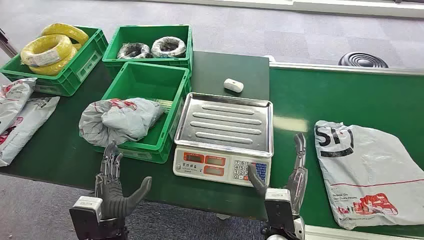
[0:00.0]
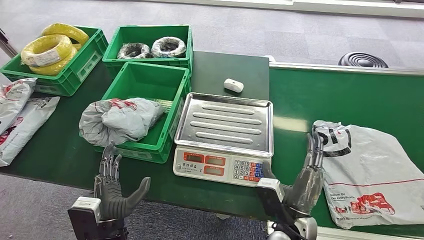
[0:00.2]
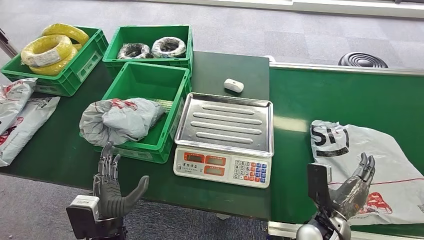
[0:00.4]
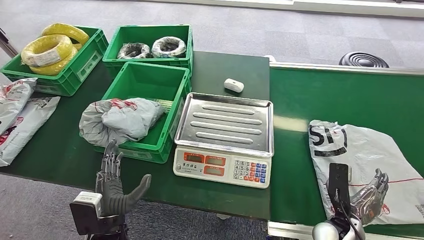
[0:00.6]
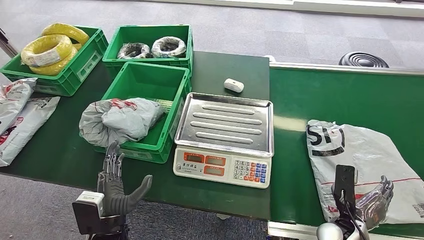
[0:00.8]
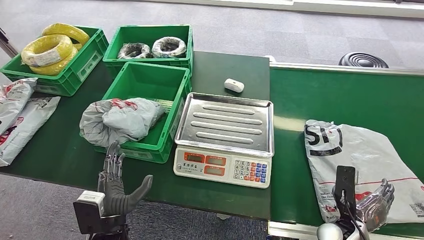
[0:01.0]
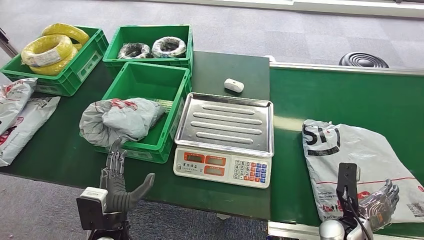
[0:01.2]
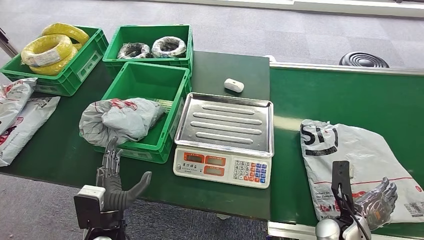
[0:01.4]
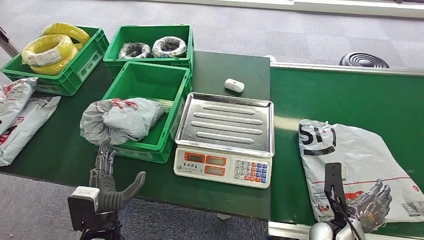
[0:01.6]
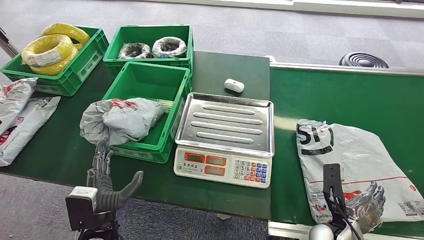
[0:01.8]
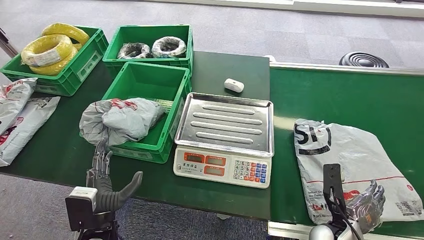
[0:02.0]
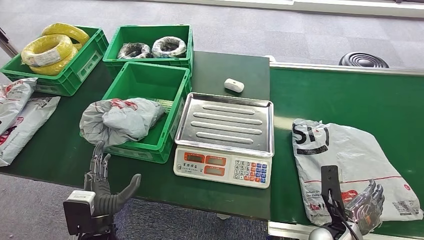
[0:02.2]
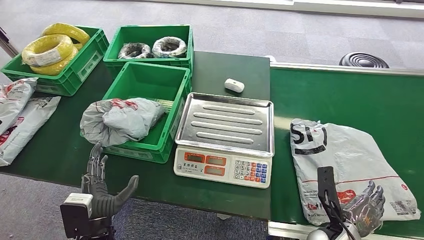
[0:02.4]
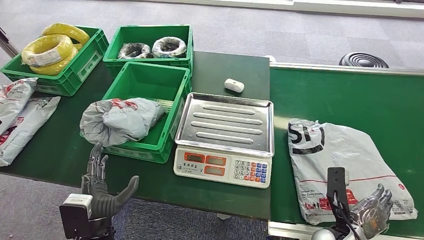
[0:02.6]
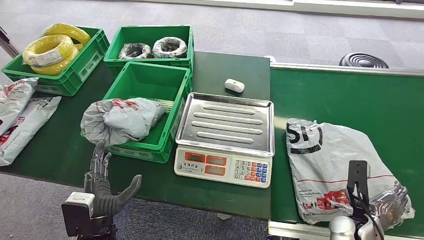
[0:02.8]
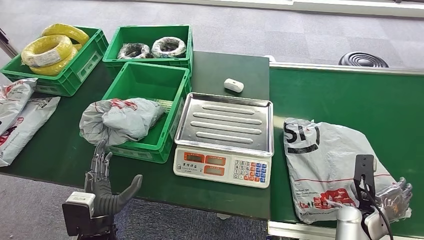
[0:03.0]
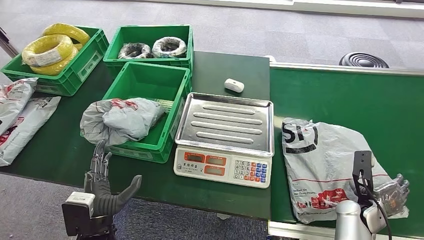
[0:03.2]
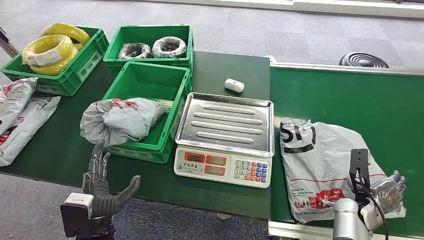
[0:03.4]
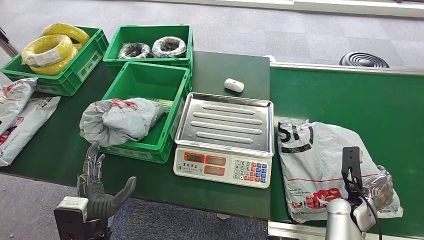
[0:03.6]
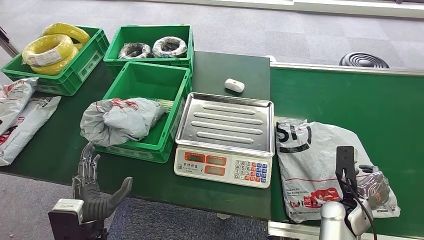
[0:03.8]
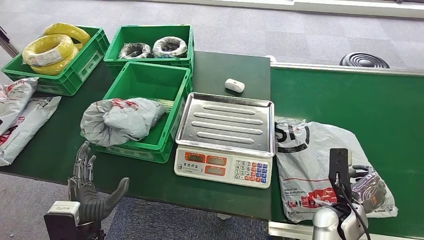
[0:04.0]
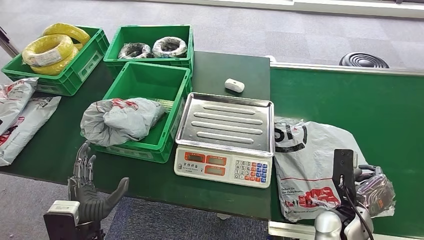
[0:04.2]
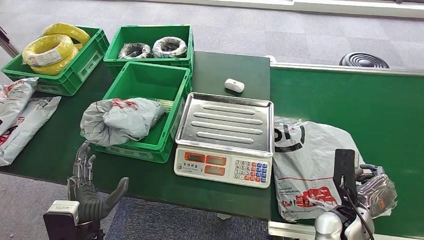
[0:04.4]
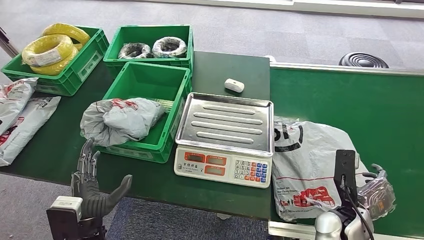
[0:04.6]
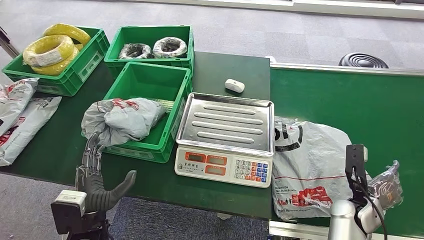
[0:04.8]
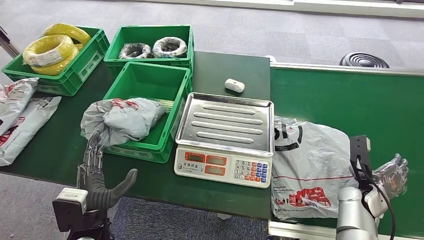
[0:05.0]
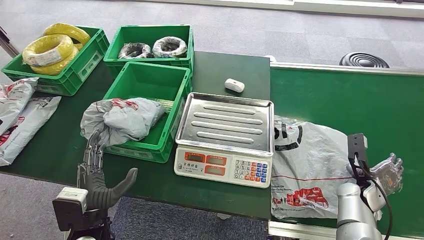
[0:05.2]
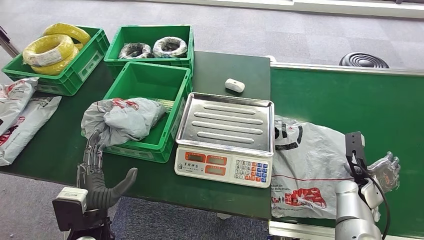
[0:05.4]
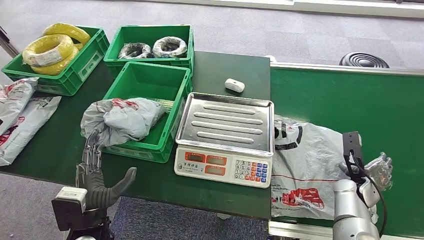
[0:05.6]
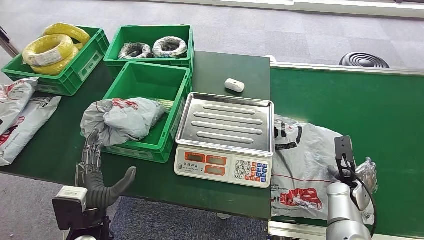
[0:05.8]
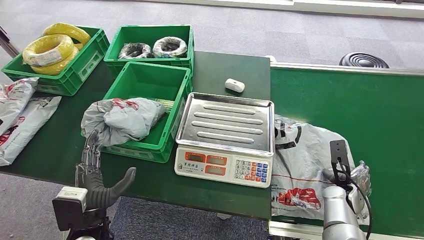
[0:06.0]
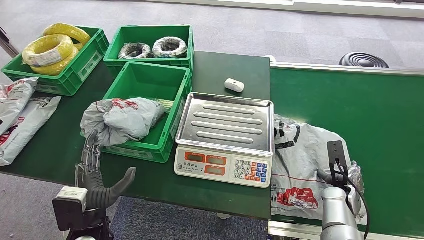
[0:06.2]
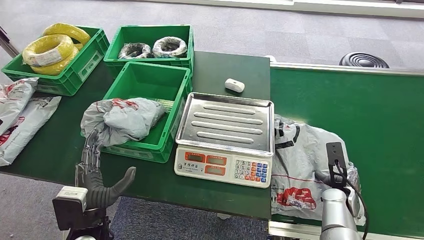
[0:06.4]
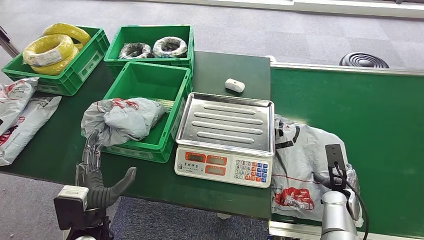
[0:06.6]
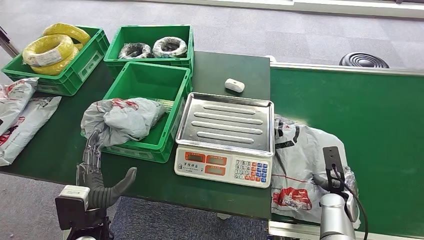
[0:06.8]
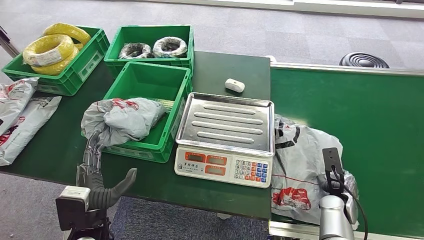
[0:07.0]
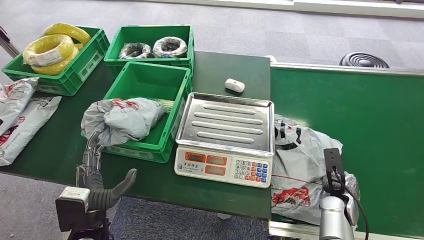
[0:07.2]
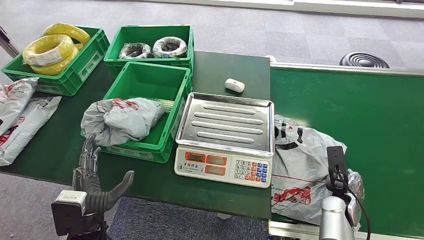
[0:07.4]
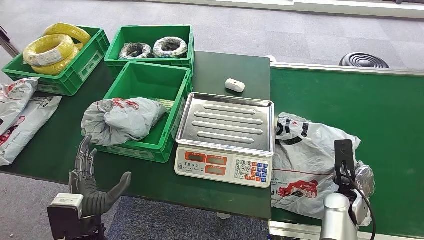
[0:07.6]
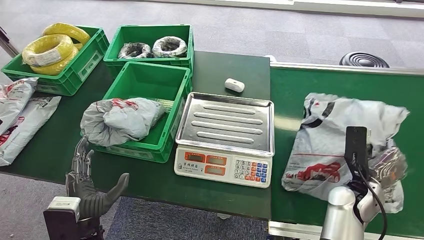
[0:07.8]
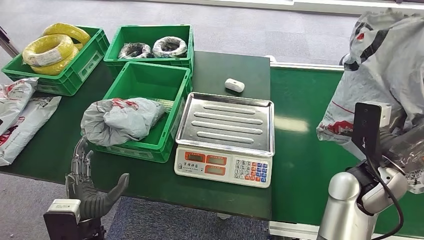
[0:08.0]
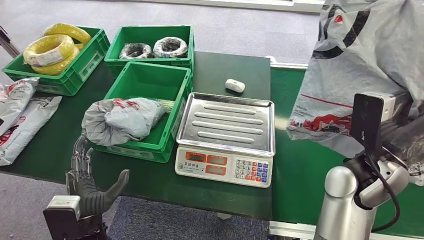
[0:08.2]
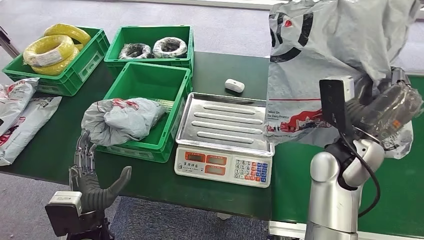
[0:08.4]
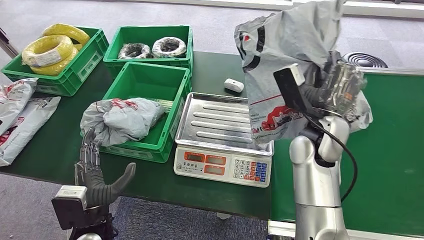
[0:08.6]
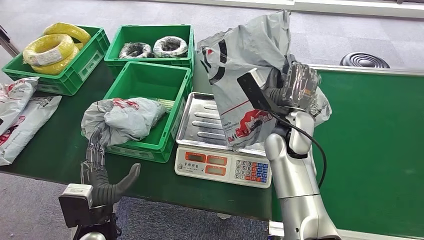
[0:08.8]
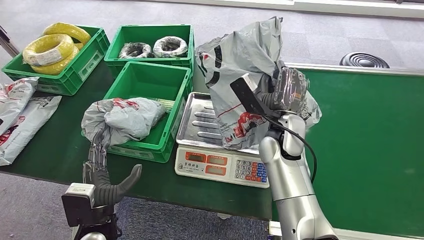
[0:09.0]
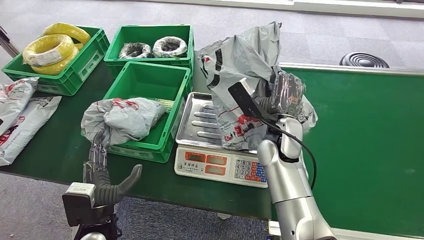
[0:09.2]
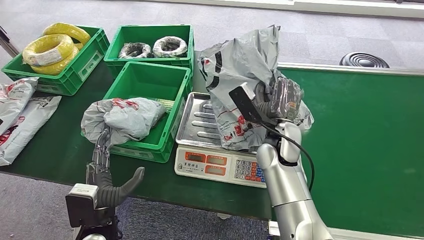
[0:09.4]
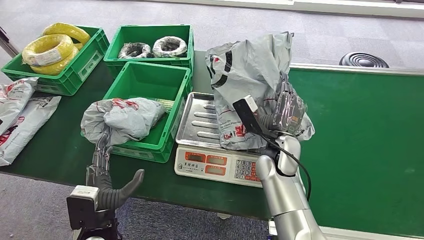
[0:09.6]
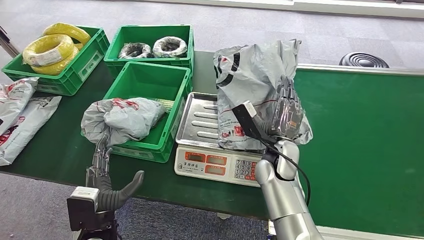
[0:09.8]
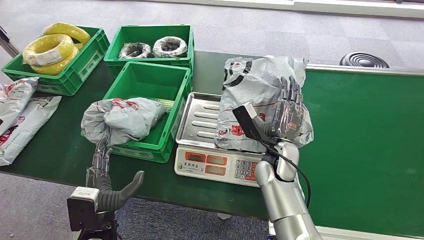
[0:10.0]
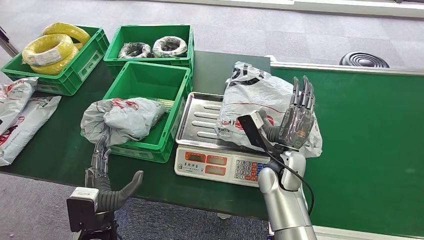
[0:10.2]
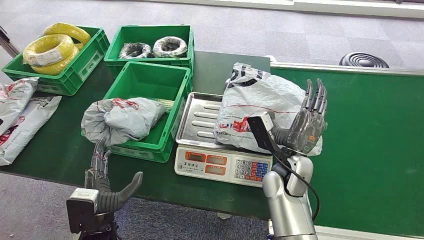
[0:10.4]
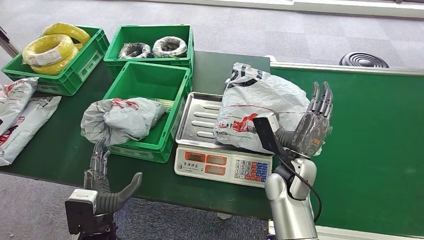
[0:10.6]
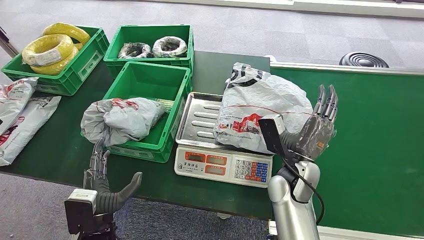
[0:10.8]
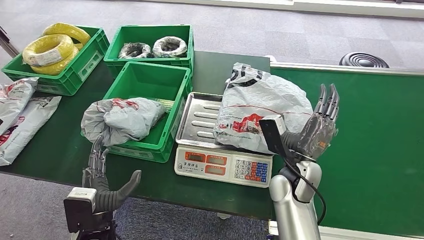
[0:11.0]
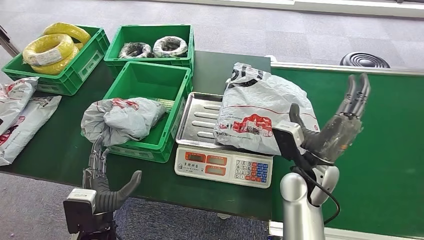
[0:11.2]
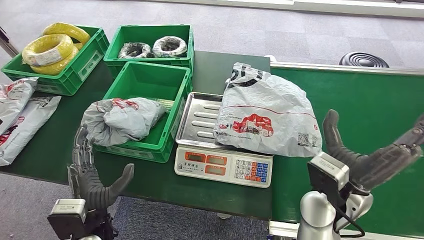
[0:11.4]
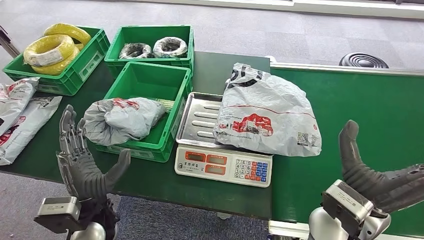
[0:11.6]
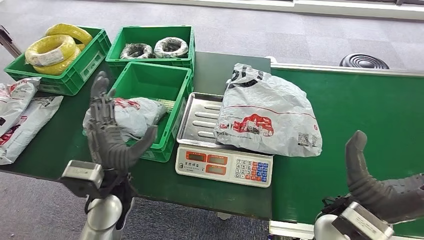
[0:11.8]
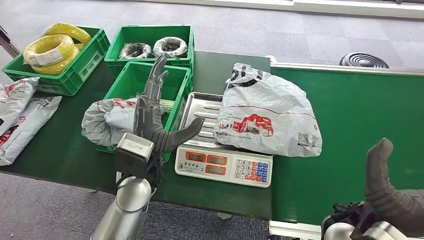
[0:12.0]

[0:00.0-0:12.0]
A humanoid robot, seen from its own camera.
Step, 0:00.0 to 0:08.0: Pick up the package from the conveyor belt.
Step, 0:08.4 to 0:10.8: Place the package onto the inbound machine.
0:01.6 to 0:03.0: The right hand travels to the right by some 10 cm.
0:03.0 to 0:04.4: The right hand heads to the left and upward, covering some 10 cm.
0:04.4 to 0:06.0: The right hand is displaced forward, to the right and downward by approximately 10 cm.
0:06.0 to 0:07.6: The hands move only a little.
0:09.0 to 0:10.4: The right hand goes approximately 10 cm downward and backward.
0:10.4 to 0:12.0: The right hand travels backward, upward and to the right by roughly 15 cm; the left hand moves upward, forward and to the right, roughly 20 cm.

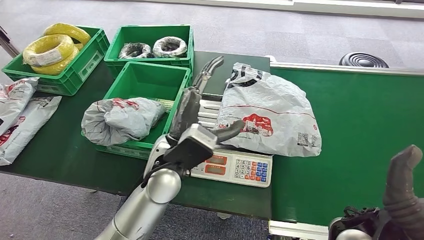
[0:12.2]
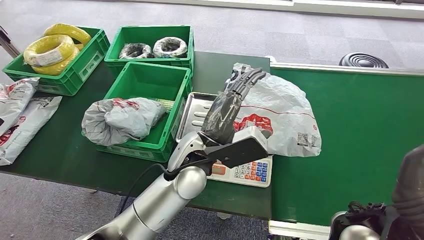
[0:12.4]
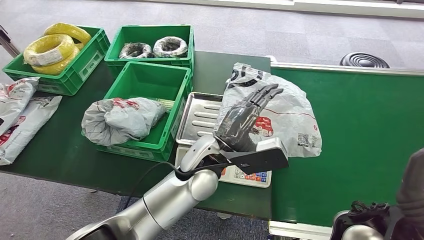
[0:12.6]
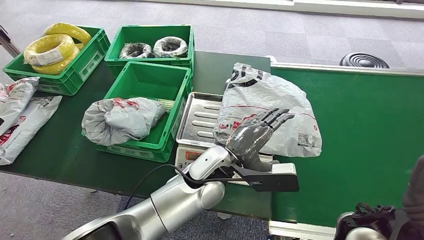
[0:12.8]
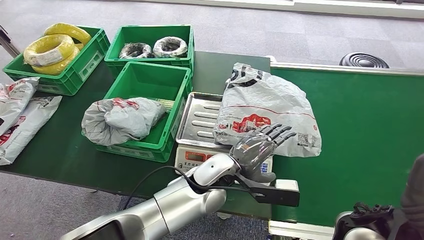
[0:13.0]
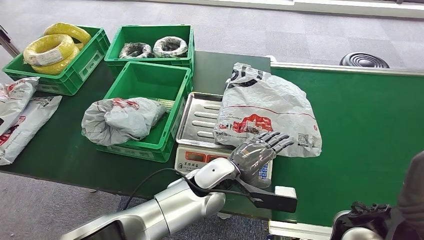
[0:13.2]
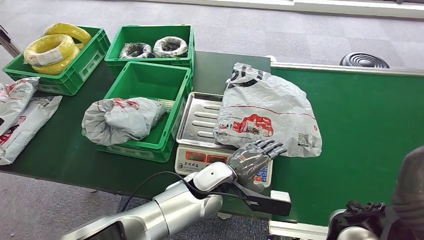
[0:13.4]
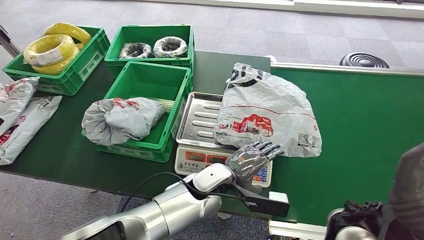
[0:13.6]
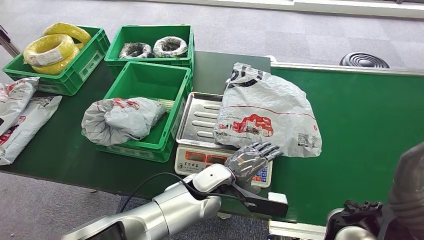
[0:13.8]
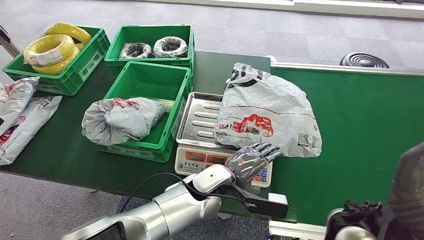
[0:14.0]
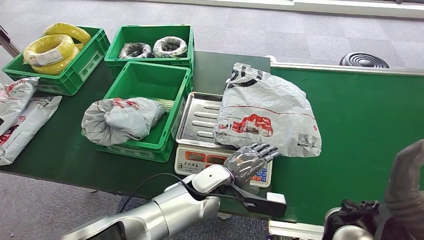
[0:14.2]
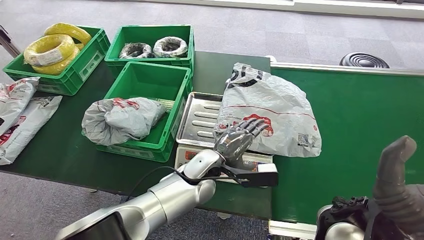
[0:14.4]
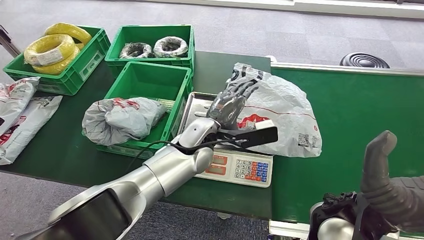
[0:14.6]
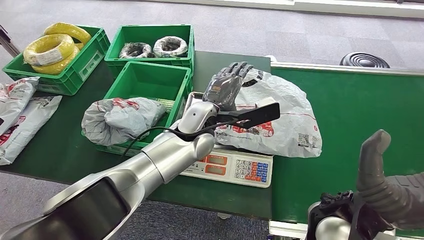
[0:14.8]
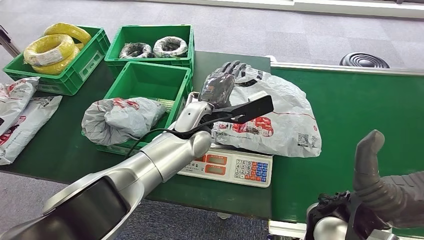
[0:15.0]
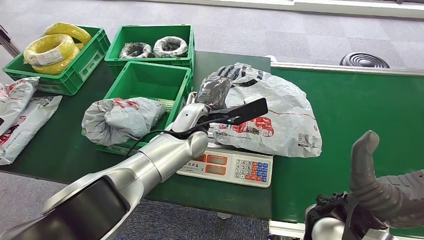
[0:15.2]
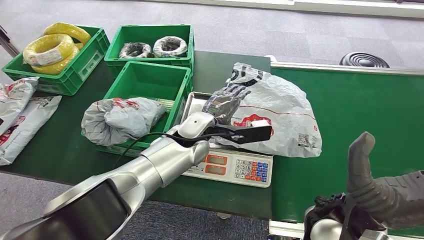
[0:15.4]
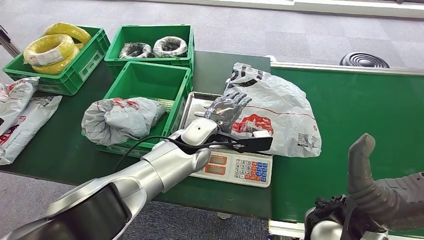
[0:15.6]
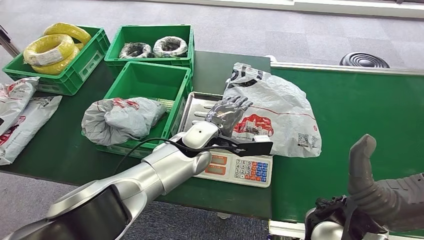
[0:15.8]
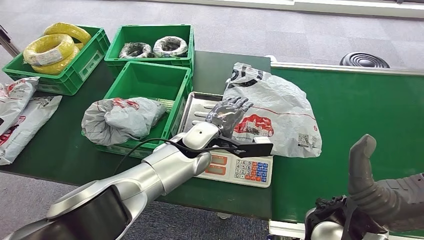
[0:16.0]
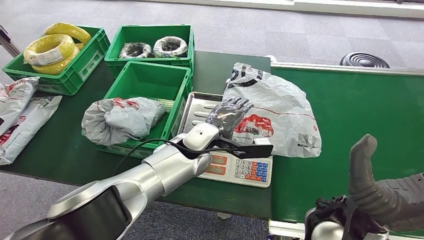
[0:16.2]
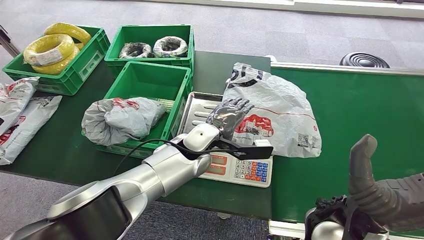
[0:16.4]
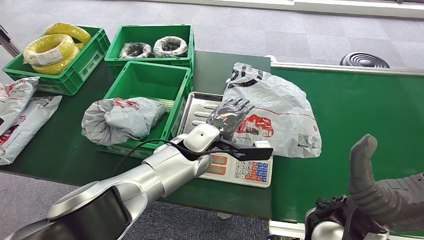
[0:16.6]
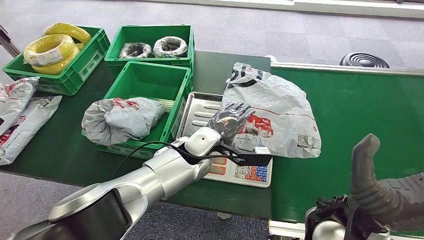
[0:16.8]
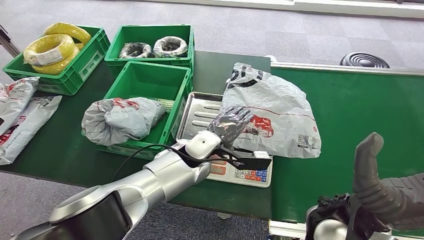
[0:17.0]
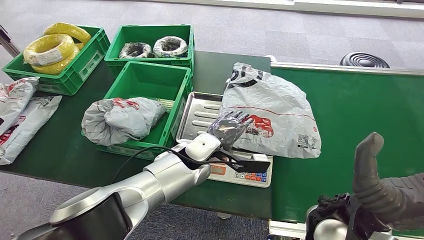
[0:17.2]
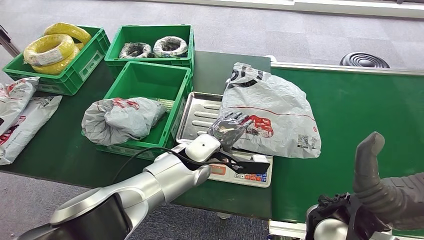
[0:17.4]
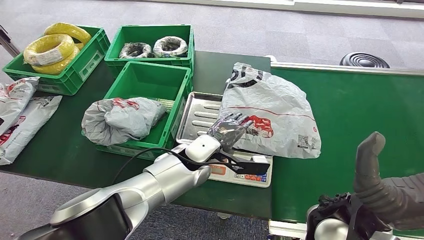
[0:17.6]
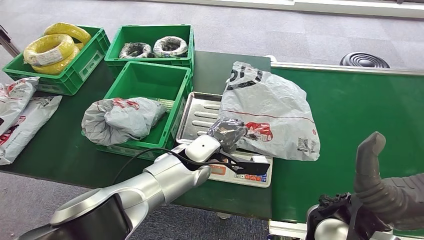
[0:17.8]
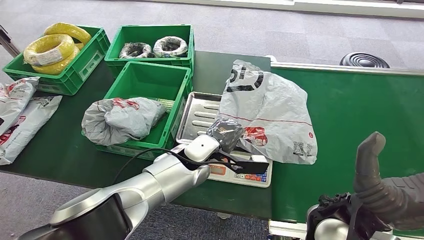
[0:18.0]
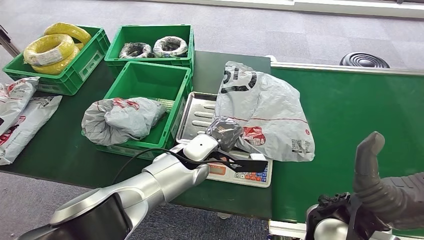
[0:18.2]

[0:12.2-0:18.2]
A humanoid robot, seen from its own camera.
0:12.2 to 0:13.8: The left hand heads downward and to the right, covering roughly 15 cm.
0:16.6 to 0:18.2: The hands make only small movements.
